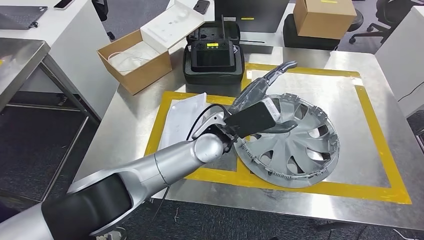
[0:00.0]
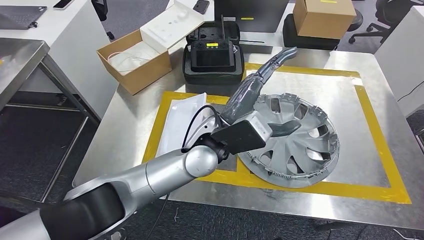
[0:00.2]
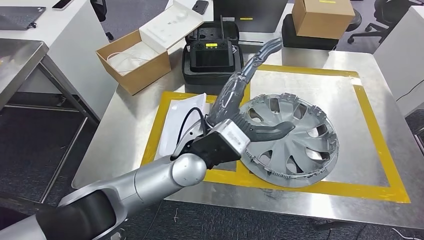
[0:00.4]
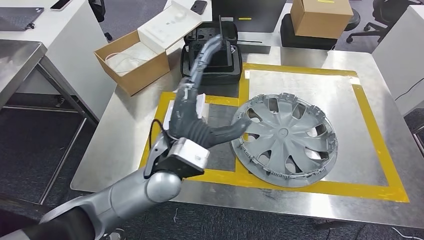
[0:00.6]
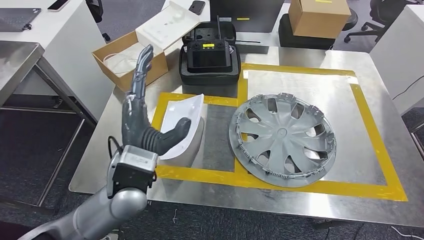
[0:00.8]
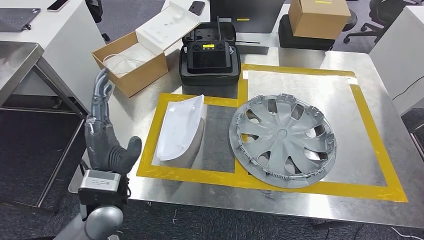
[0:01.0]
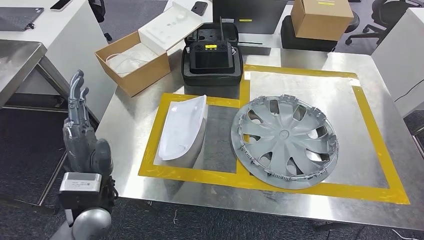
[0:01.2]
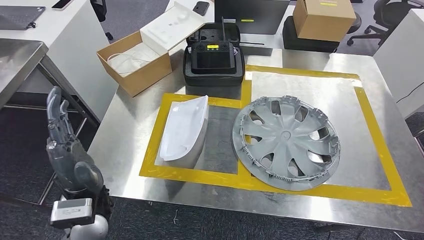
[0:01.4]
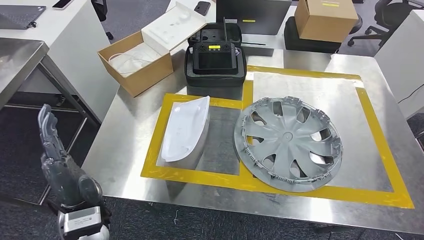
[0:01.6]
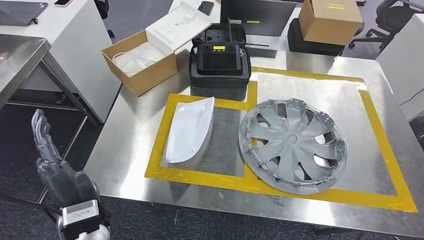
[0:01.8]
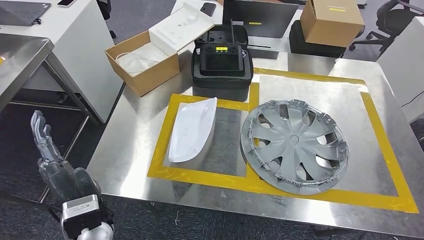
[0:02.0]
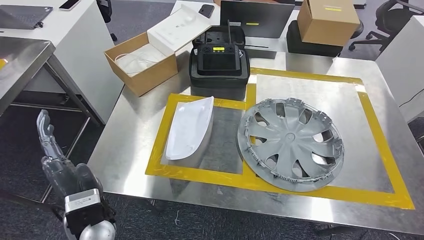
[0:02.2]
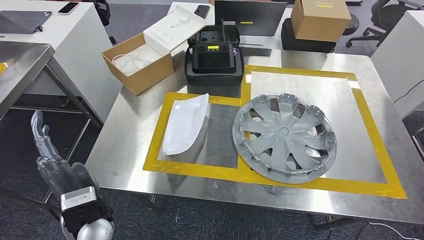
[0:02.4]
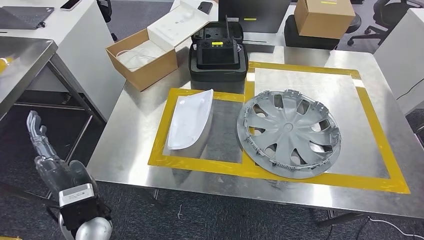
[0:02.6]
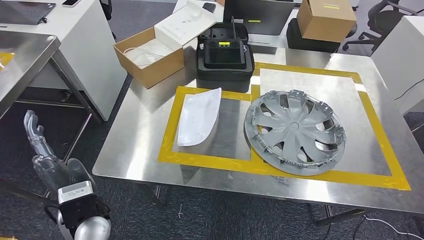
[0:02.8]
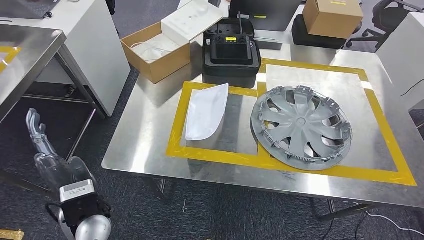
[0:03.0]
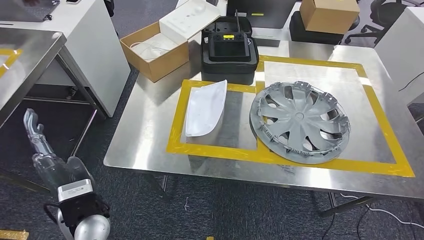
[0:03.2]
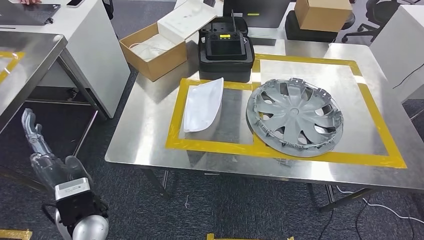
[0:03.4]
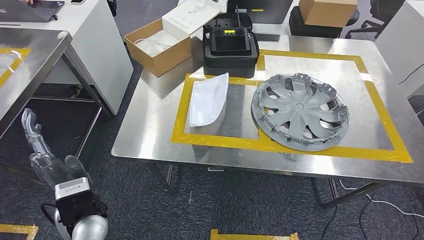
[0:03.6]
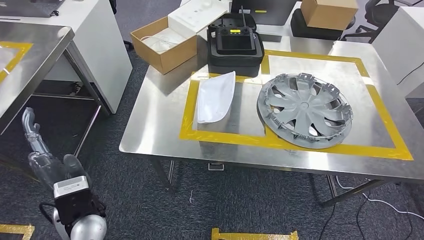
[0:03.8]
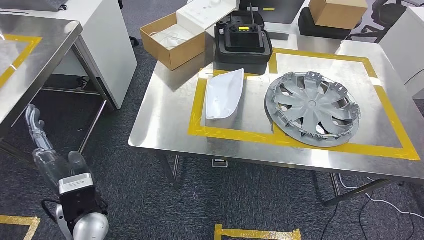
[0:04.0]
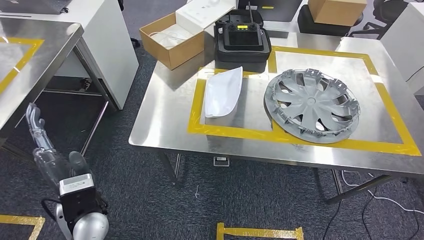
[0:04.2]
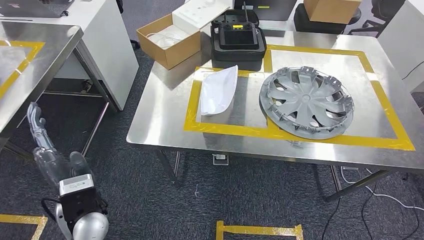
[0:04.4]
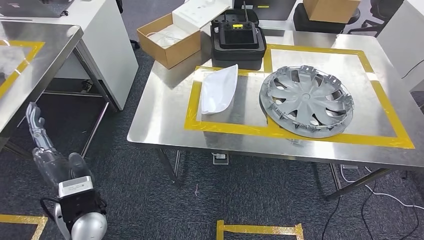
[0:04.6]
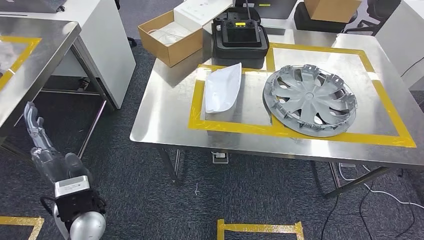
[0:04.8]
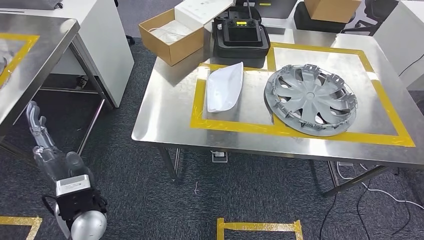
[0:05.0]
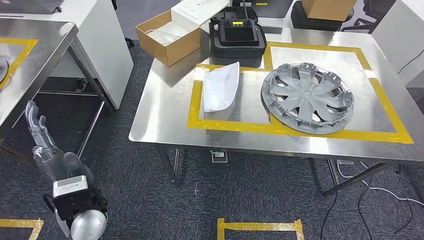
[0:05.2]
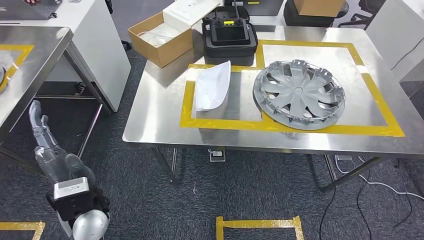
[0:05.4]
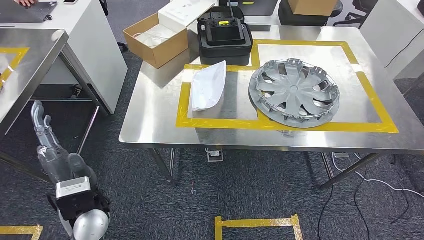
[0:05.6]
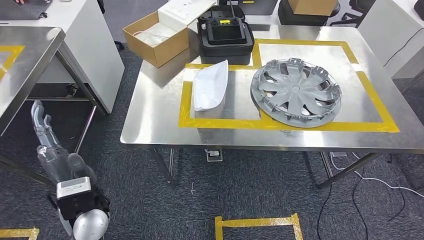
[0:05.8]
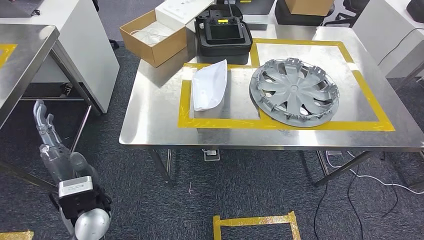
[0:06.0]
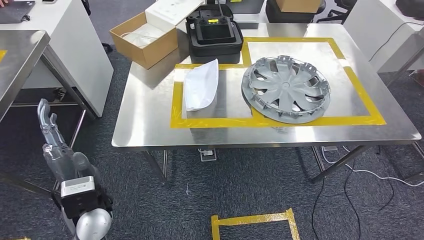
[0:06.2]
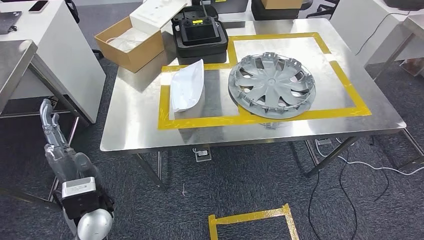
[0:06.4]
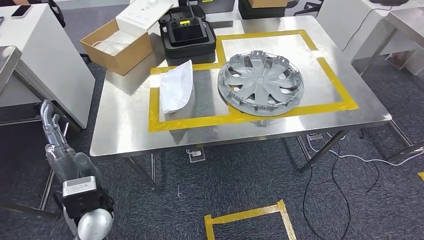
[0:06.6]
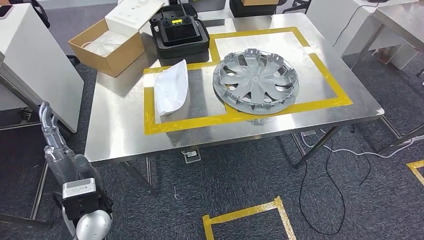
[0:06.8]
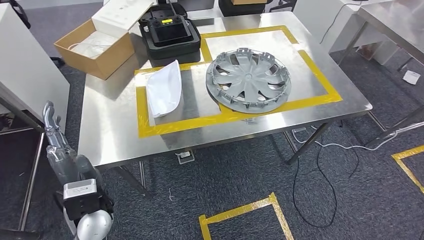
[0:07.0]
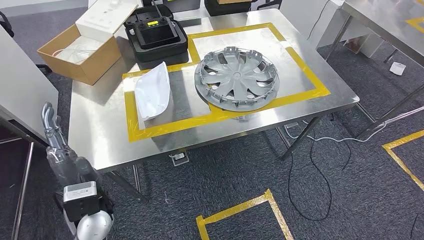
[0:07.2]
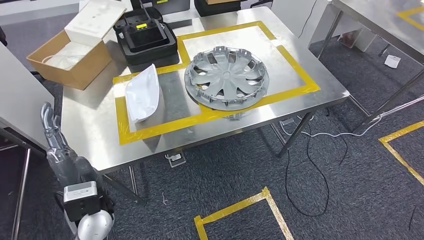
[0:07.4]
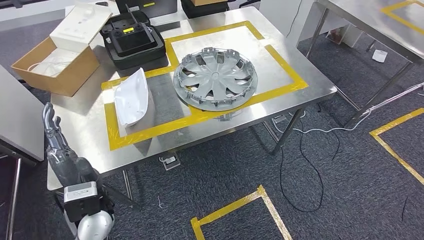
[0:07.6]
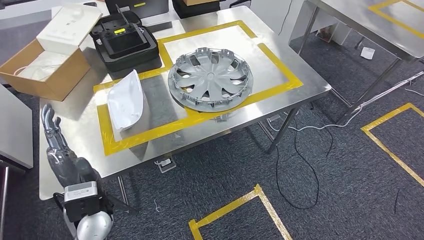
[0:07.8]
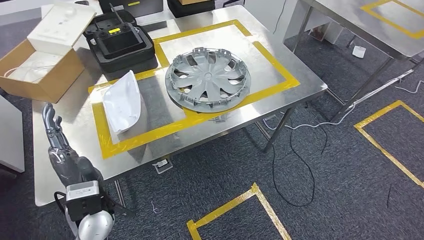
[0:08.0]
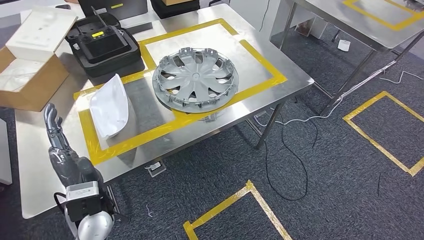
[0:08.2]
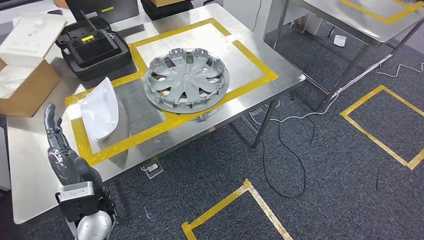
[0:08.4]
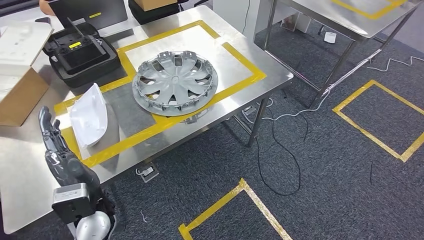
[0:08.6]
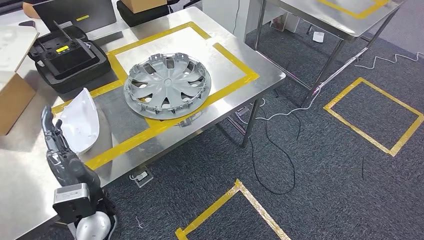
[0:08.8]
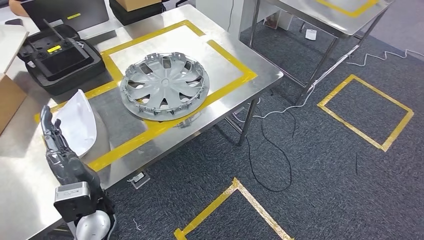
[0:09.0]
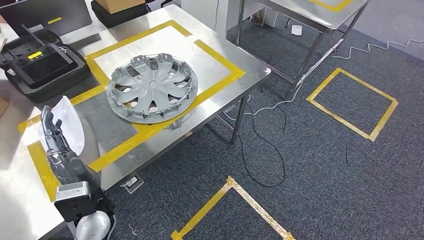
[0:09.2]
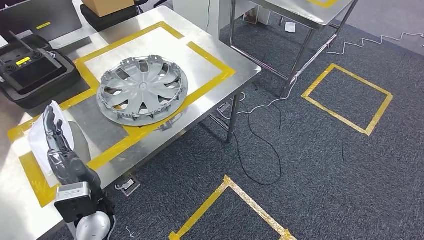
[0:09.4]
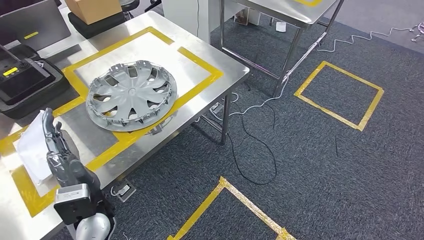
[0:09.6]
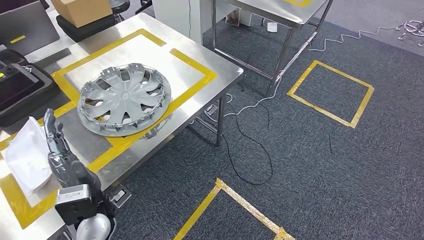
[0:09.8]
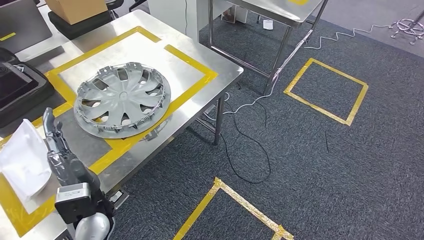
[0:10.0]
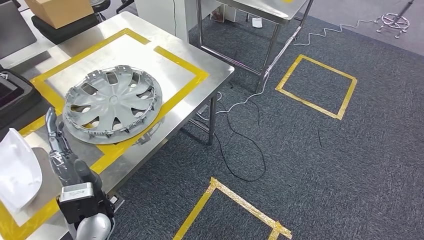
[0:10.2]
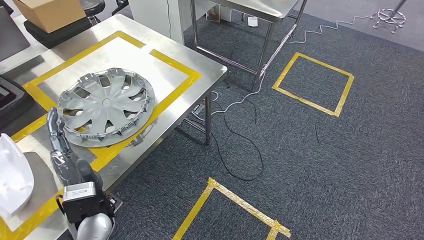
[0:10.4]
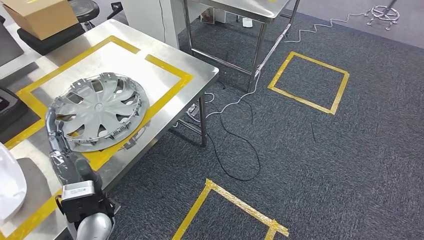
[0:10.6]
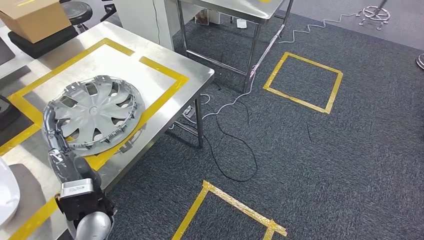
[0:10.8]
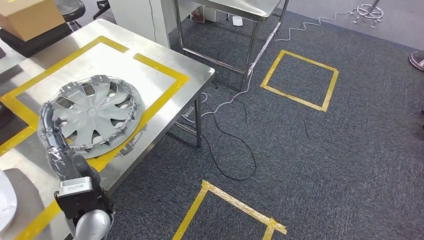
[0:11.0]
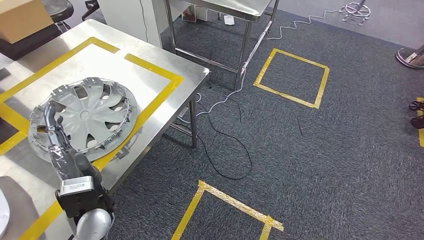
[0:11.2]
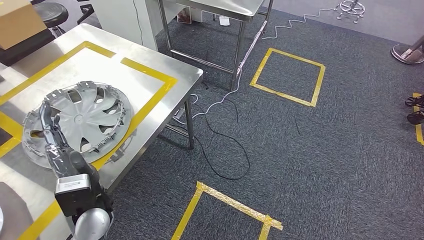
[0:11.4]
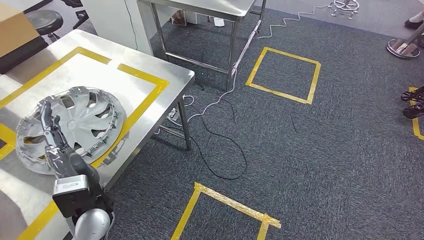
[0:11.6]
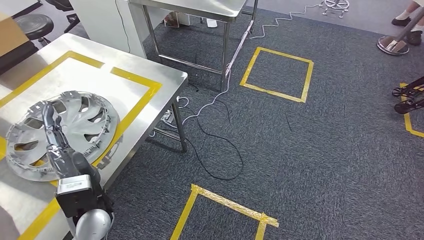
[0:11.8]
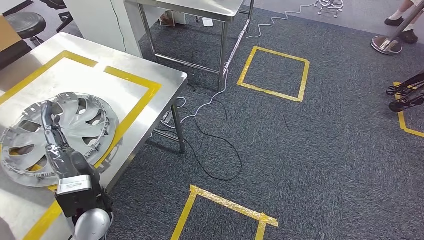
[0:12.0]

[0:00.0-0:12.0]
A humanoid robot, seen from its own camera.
Step, 0:00.0 to 0:03.0: Insert the small component into the corresponding slot on the workbench.

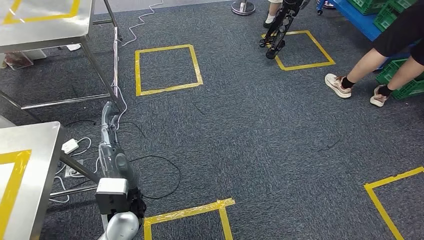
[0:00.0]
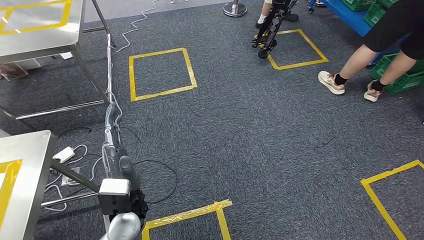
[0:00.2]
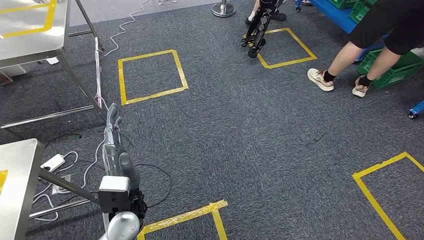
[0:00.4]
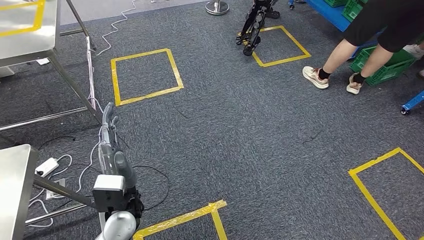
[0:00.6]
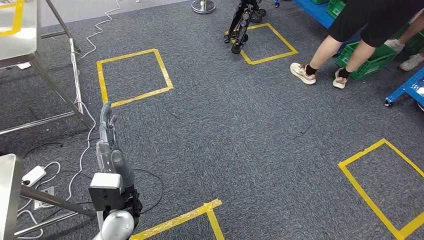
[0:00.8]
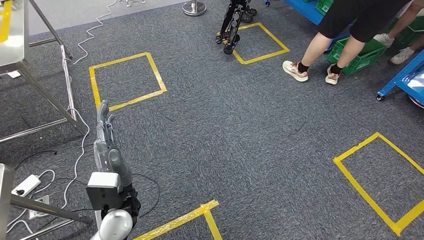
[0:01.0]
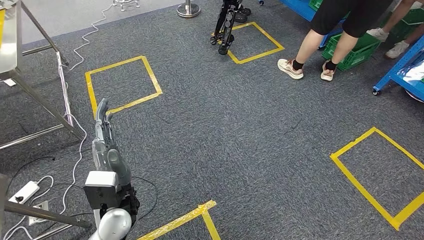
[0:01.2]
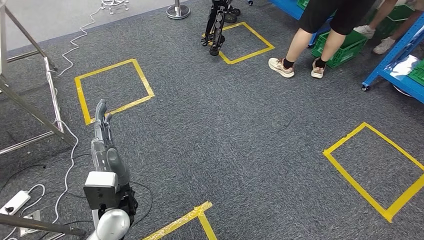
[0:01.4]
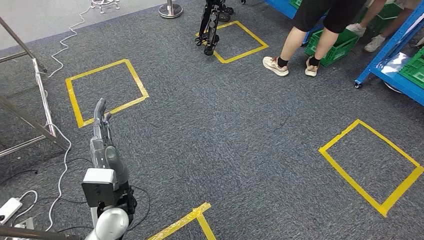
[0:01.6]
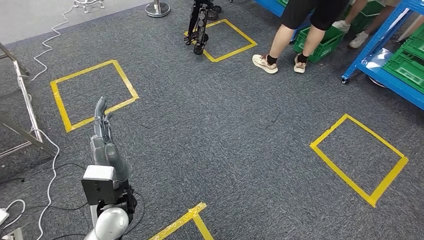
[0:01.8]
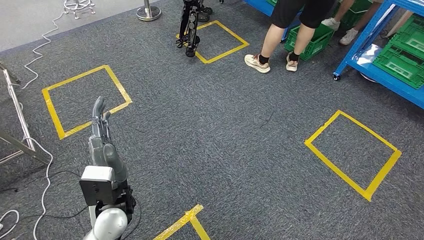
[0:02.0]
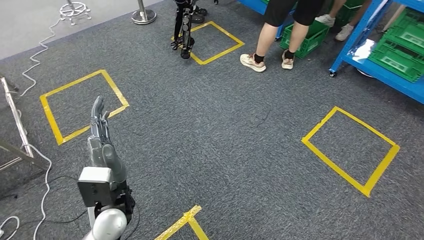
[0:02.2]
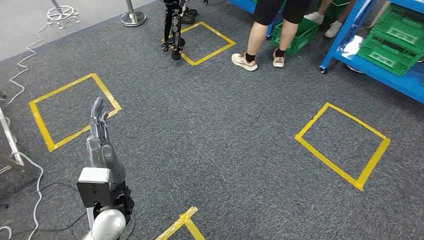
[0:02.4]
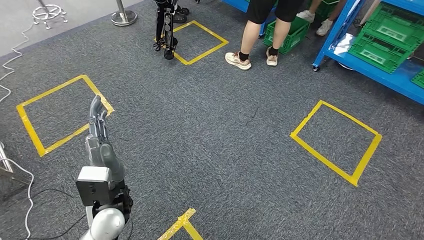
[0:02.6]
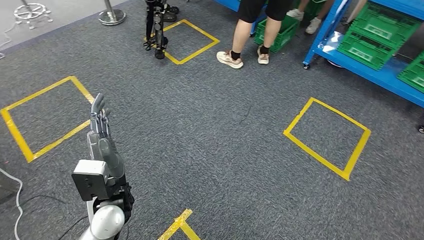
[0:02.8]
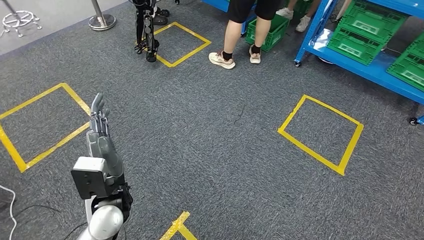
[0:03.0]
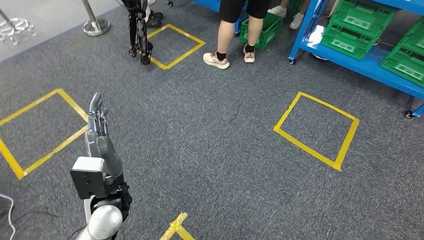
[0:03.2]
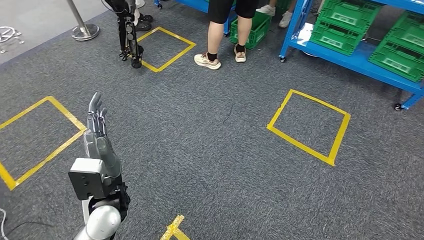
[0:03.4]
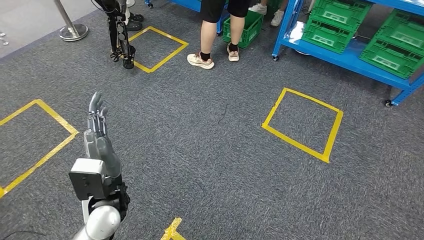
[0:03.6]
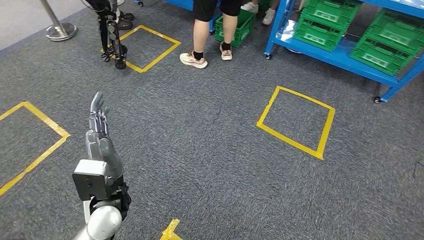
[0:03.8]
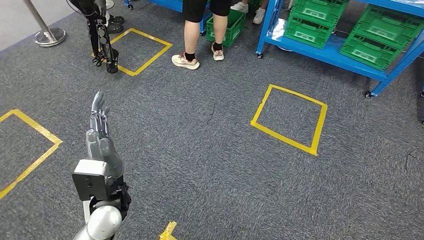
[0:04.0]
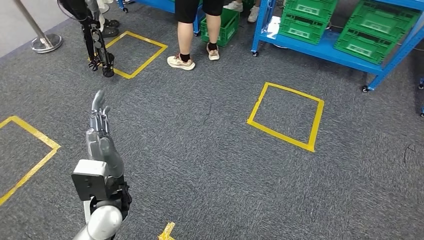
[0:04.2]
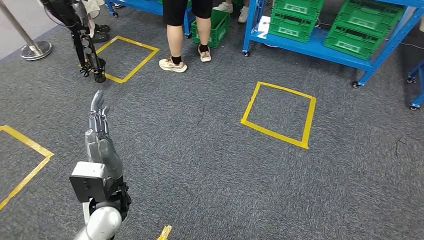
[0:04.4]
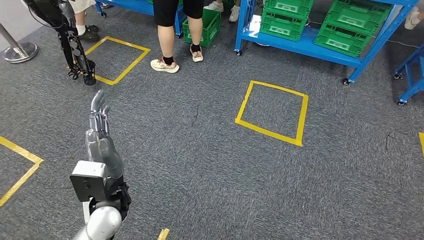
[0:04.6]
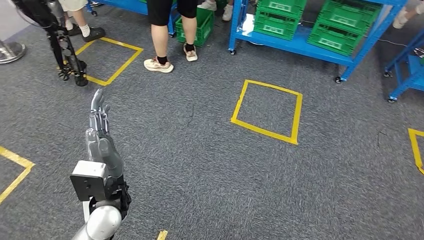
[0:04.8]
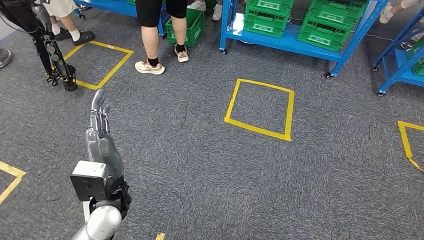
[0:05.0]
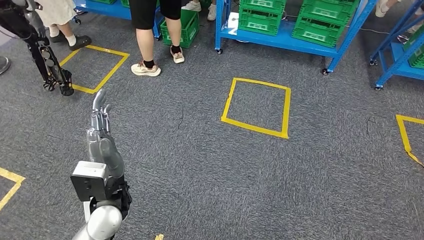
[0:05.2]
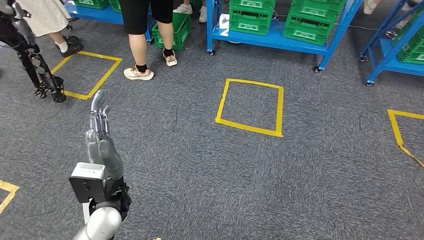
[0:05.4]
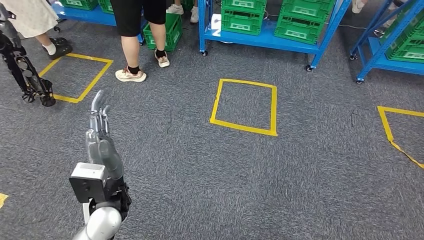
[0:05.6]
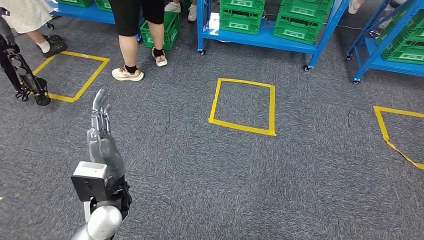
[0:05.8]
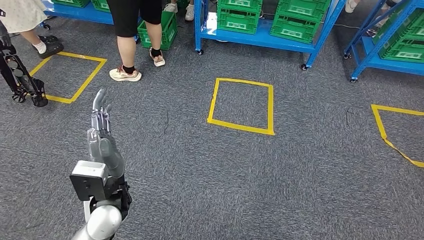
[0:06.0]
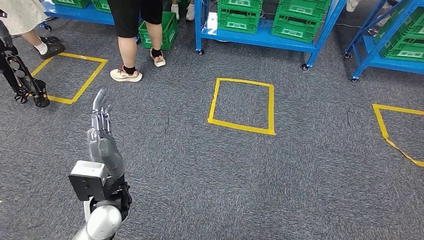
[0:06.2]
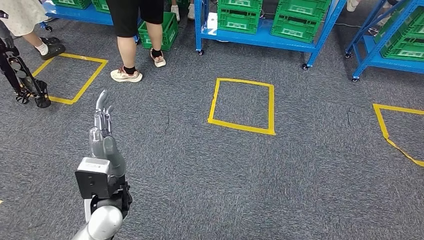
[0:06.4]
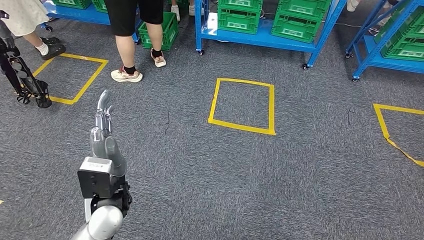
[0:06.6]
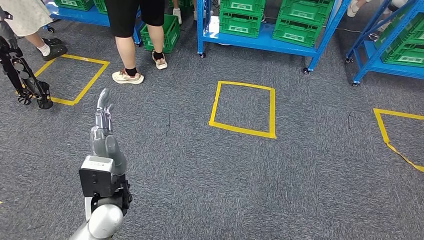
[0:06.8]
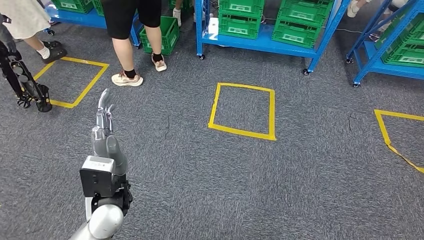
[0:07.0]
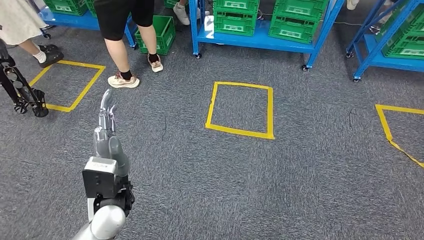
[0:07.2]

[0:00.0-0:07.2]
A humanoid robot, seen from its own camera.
0:05.8 to 0:07.2: Both hands stay put.
